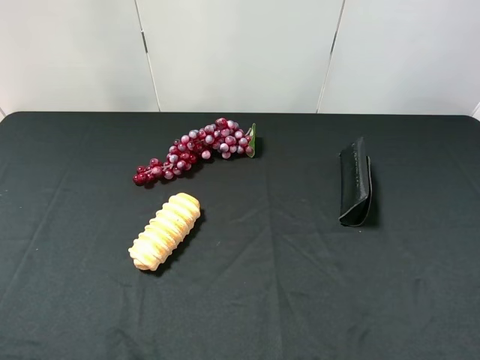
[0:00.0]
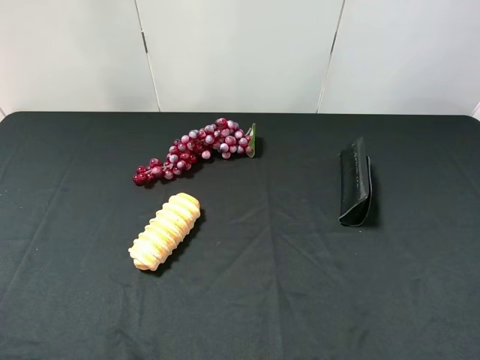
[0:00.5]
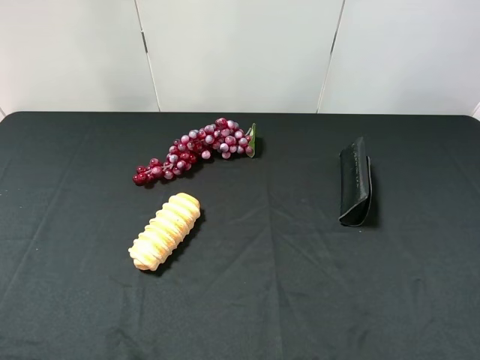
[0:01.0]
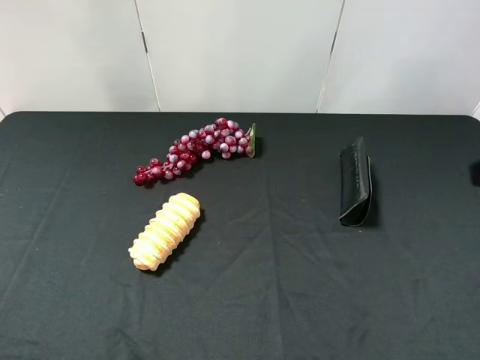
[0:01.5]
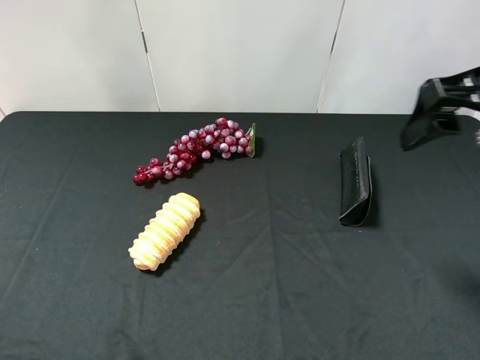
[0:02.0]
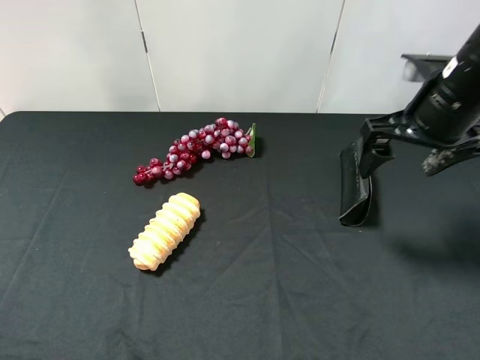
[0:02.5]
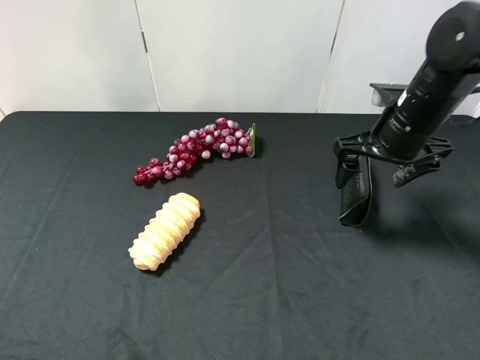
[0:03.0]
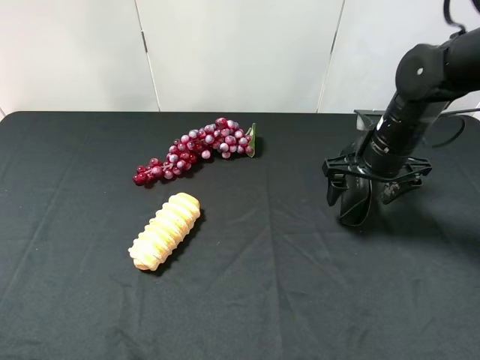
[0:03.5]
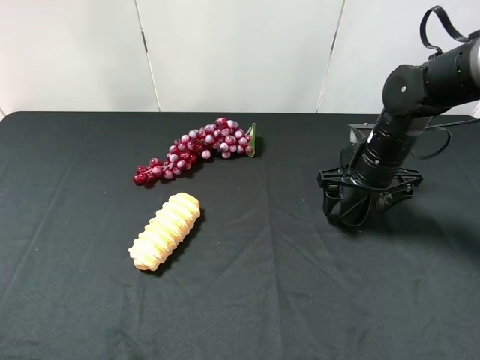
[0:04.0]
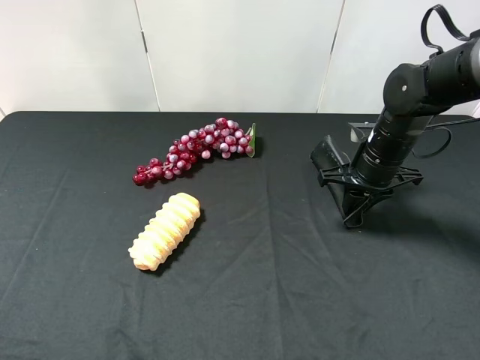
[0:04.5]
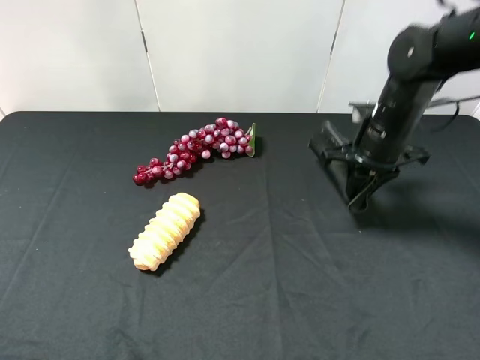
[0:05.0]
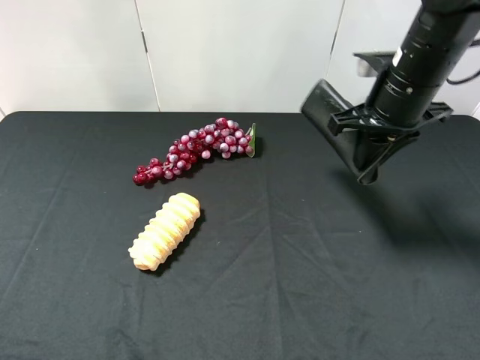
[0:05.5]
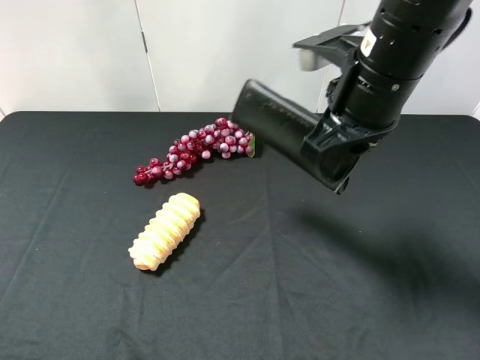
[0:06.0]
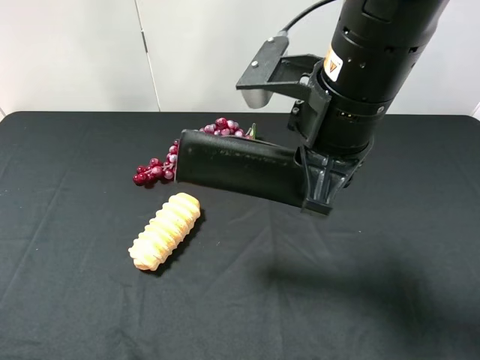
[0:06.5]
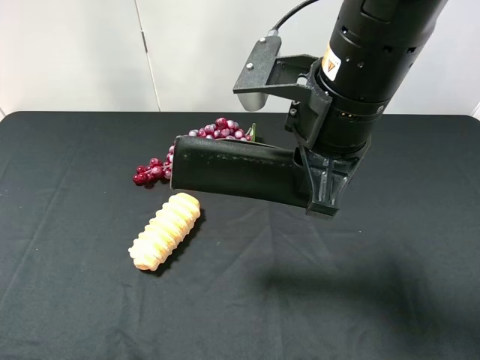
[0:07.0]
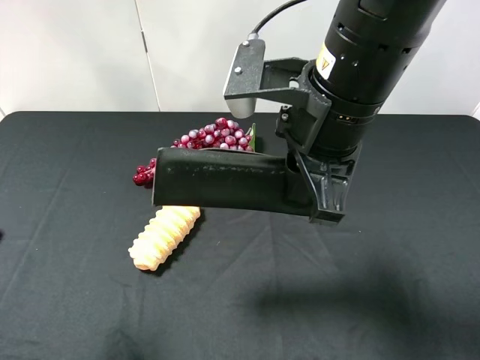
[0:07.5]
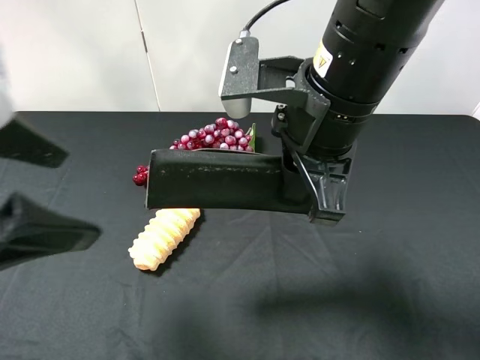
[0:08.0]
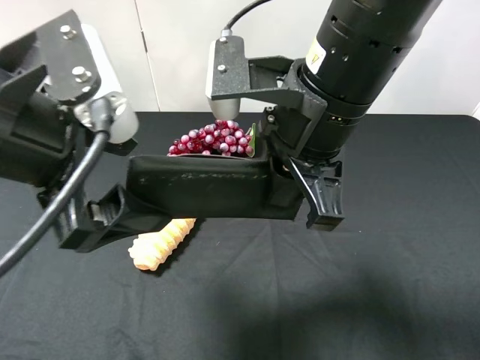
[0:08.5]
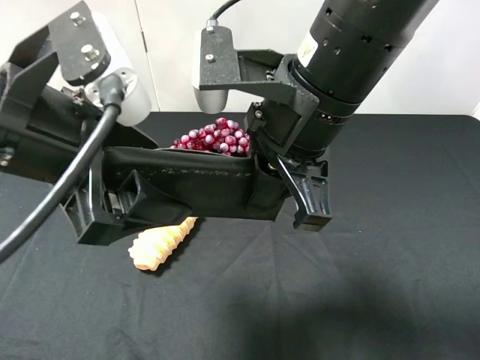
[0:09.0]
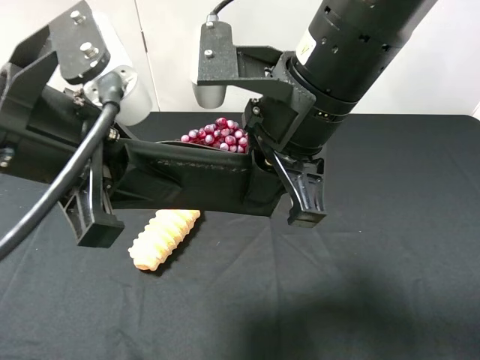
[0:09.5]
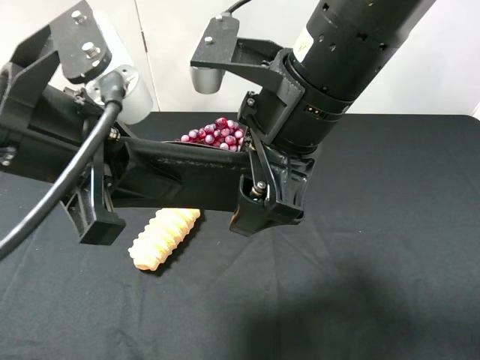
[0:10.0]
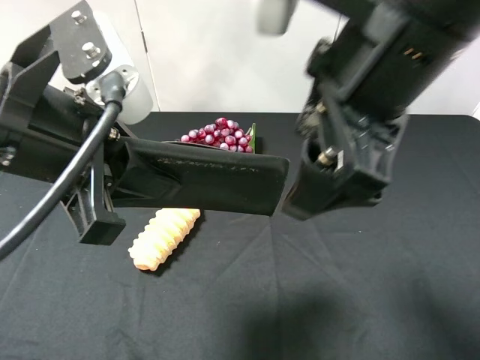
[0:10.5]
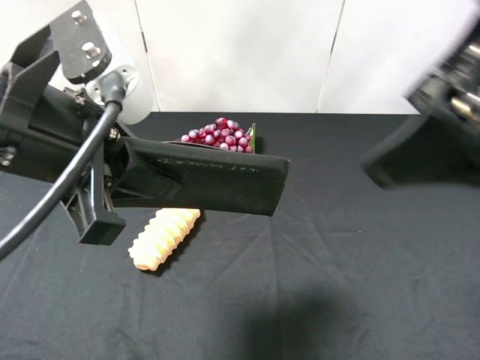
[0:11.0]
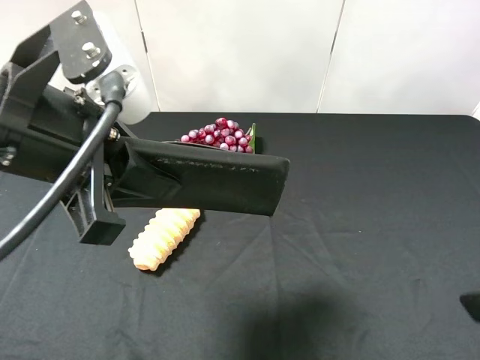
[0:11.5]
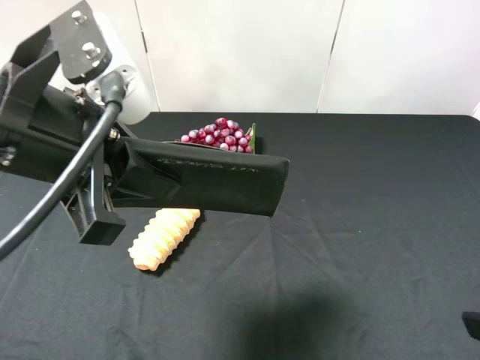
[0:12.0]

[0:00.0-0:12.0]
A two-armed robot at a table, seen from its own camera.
Task of the whole recording: use the right gripper to pick up the item and transfer it from the right gripper to the left gripper.
Step, 0:00.0 to 0:04.5: Use the right gripper to grab the eyeglass case on the right side of the table.
Step, 0:05.0 to 0:10.0: Pass the eyeglass case to the left gripper.
0:00.0 to 0:02.0: The right gripper moves forward, roughly 20 cm.
0:02.0 to 0:04.0: The right gripper travels downward and forward by approximately 20 cm.
0:04.0 to 0:06.0: The right gripper moves upward, to the left and backward, roughly 20 cm, and closes up.
0:06.0 to 0:08.0: The left gripper travels forward and to the right by roughly 15 cm; the right gripper ends up some 5 cm from where it was.
0:08.0 to 0:10.0: The right gripper opens. The left gripper moves to the right, some 5 cm, and closes up.
0:10.0 to 0:12.0: The right gripper goes some 25 cm to the right and backward.

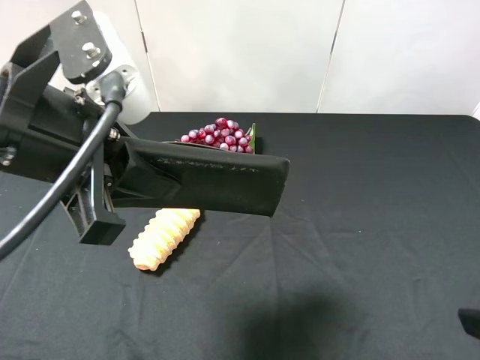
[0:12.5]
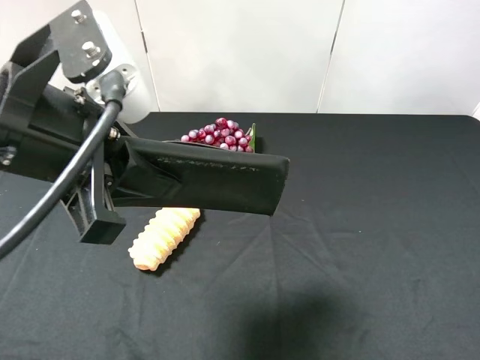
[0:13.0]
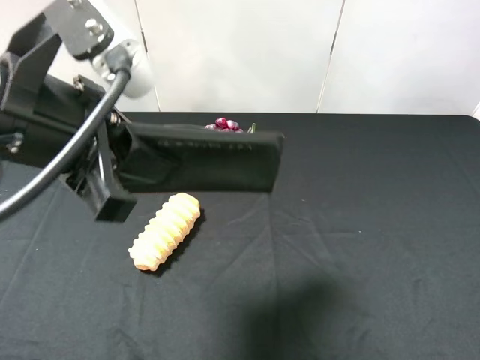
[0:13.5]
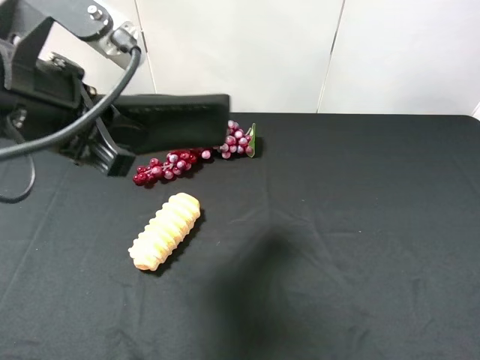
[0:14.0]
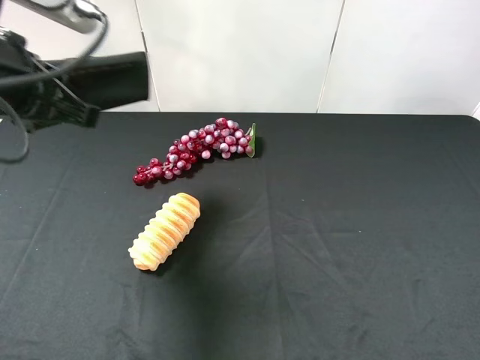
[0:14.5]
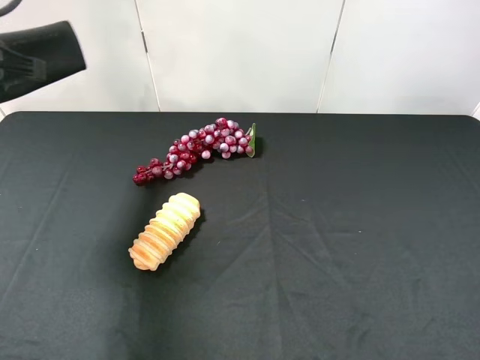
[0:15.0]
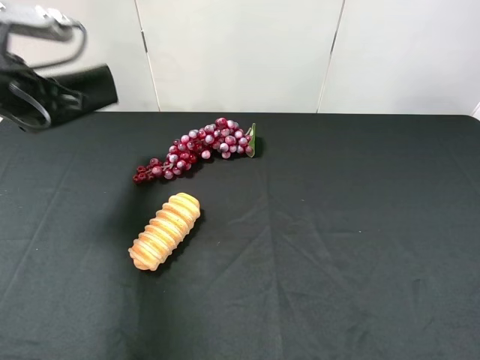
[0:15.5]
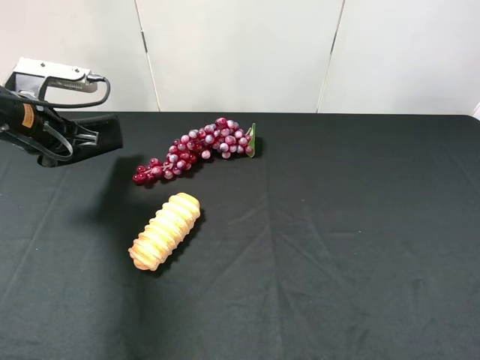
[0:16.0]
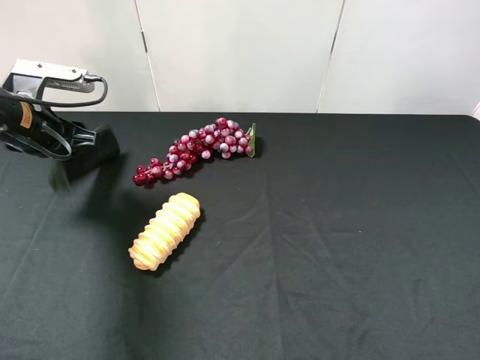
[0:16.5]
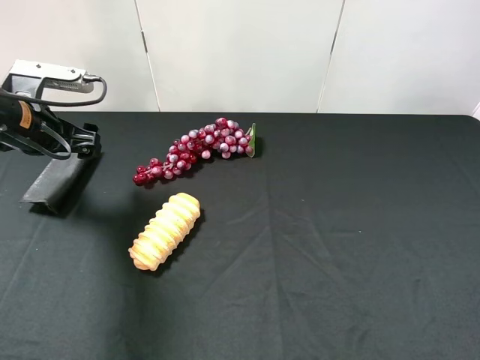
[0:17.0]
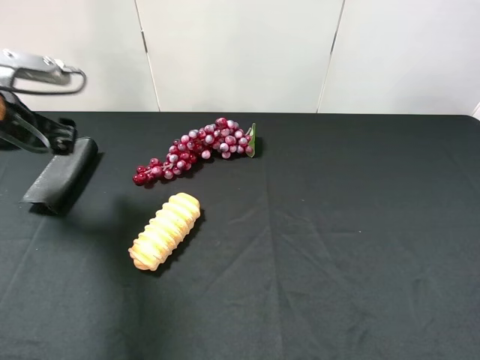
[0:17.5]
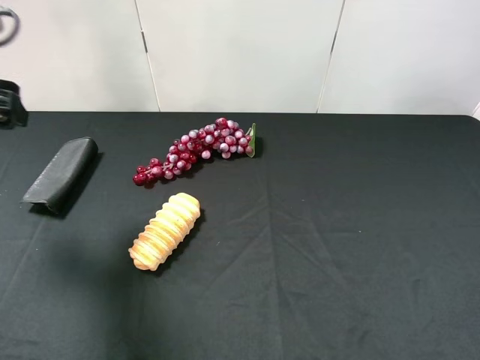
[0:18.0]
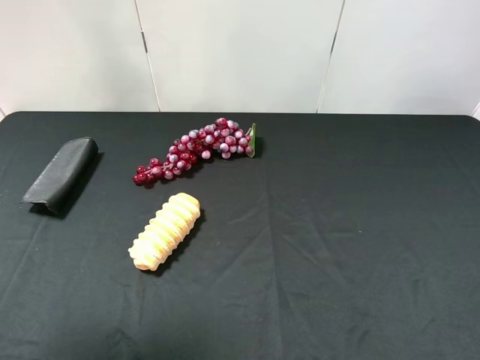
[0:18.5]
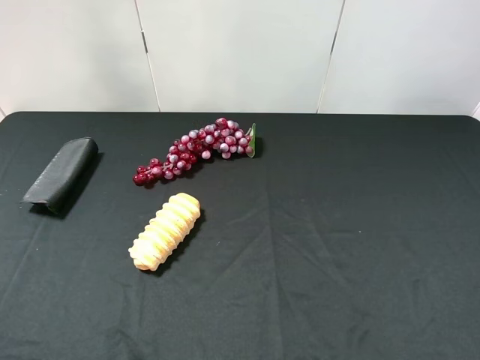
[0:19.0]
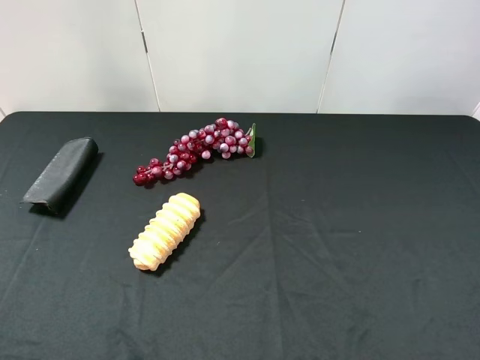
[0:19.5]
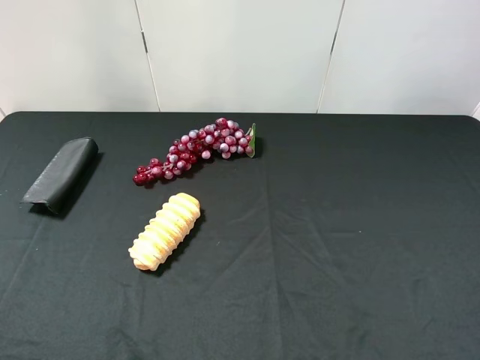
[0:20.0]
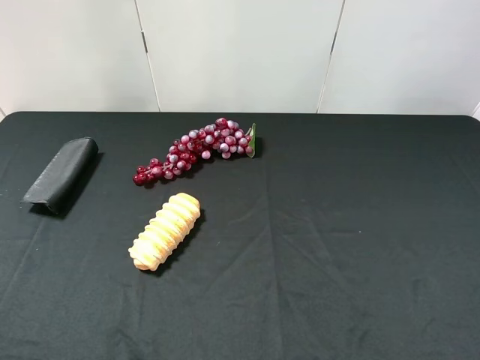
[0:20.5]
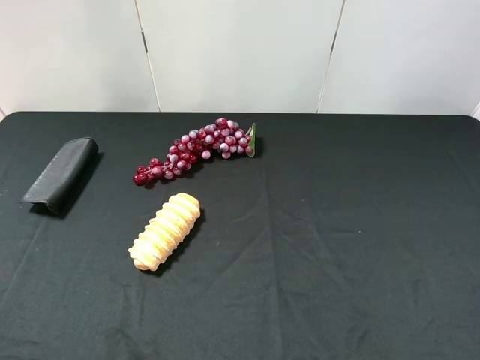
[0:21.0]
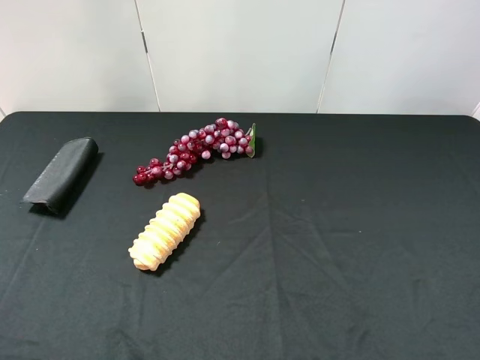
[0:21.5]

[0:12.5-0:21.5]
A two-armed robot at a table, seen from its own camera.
Task of the whole recording: use the right gripper to pick up the item and transfer it from the right gripper to the left gripper.
Step, 0:12.5 to 0:16.5: The left gripper places eyeglass case on the left side of the table.
0:12.5 to 0:14.5: The left gripper travels to the left by some 5 cm.
0:14.5 to 0:17.0: The left gripper moves downward, forward and to the left, roughly 15 cm, and opens up.
0:17.0 to 0:19.5: The left gripper travels backward by some 30 cm.

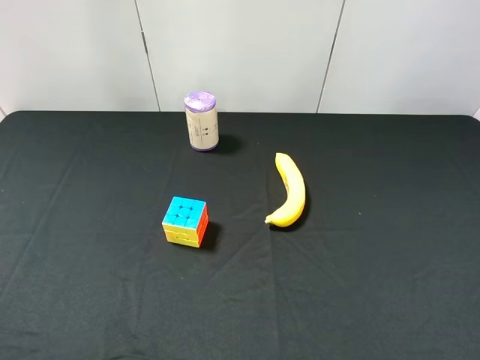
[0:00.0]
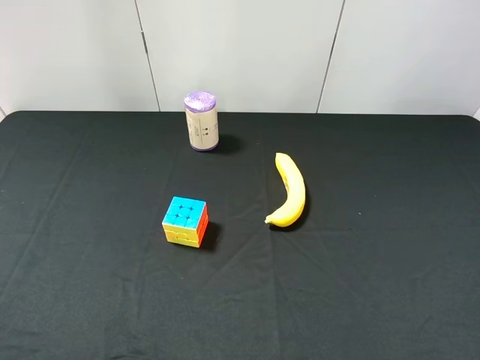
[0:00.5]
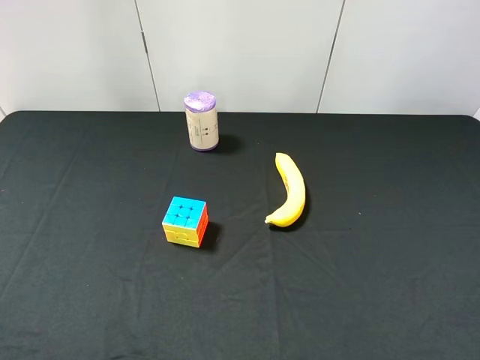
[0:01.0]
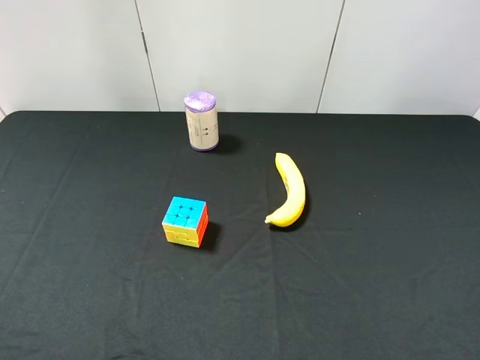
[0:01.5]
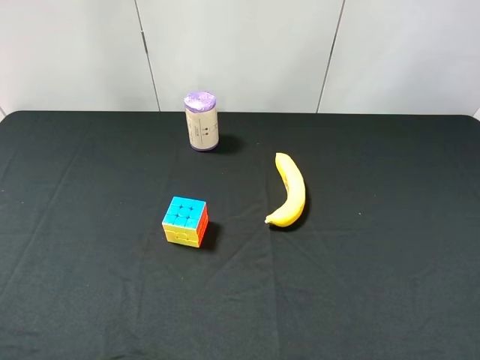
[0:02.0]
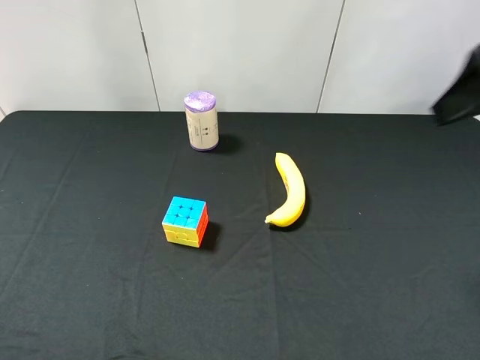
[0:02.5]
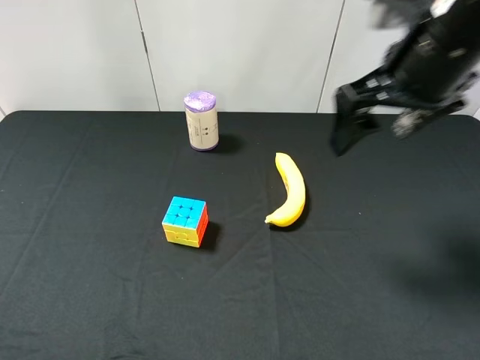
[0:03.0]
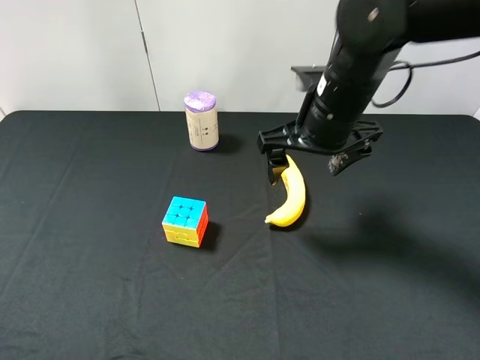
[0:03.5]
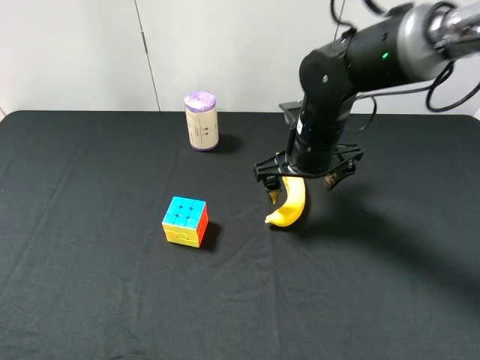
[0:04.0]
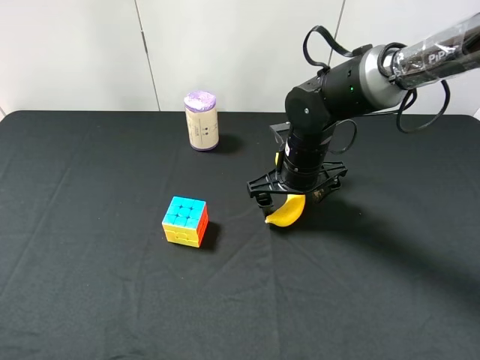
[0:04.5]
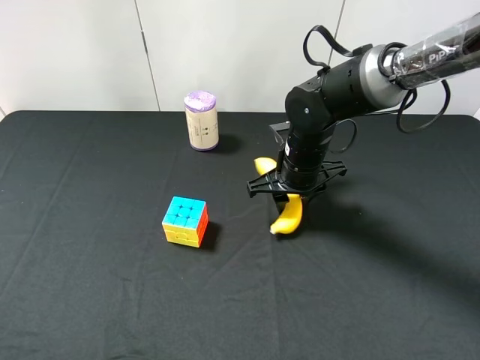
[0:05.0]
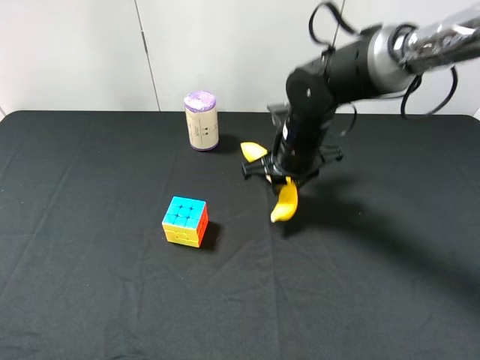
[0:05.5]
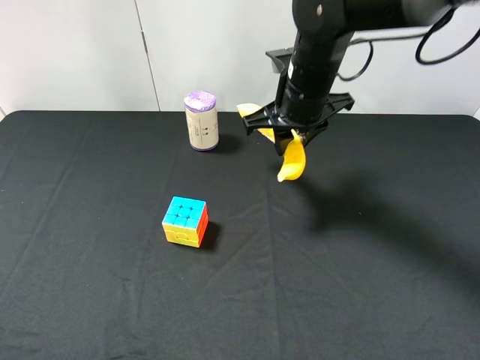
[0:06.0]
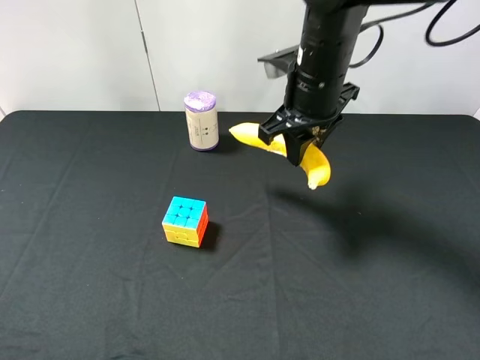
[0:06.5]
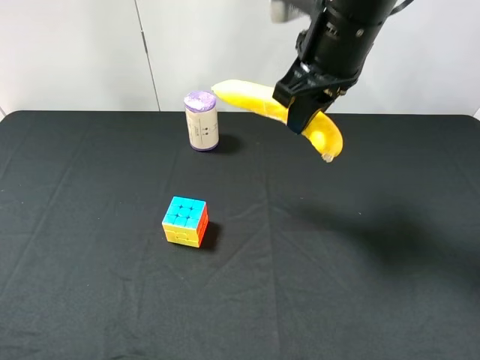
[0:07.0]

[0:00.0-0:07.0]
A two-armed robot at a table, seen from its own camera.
Task of the whole recording: use the right gripper to pick up the item and transfer it from the right gripper to the left gripper.
Step, 0:00.0 to 0:05.0: Use the right gripper to grab the banana on the right side of the table.
0:02.0 to 0:03.5: The right gripper moves forward, to the left and downward, roughly 30 cm.
0:03.5 to 0:05.0: The right gripper heads downward, covering roughly 10 cm, and closes its fingers.
0:05.0 to 0:07.0: The right gripper goes roughly 20 cm upward.
